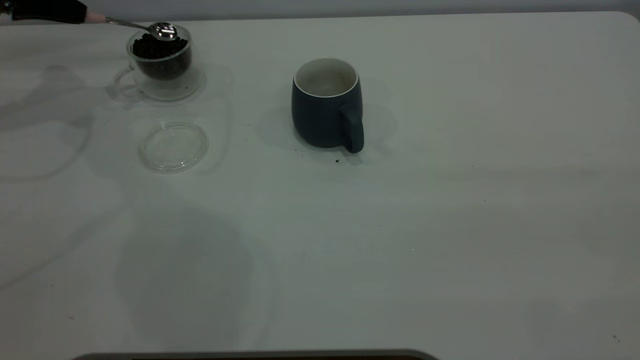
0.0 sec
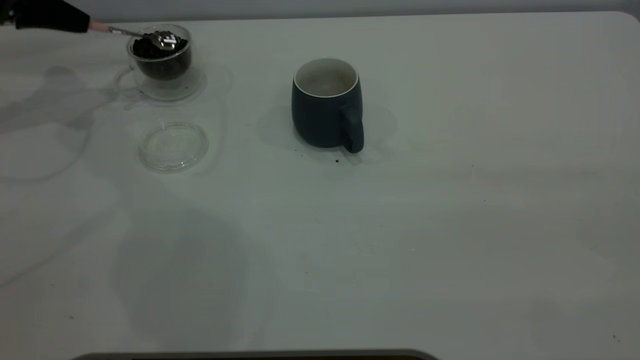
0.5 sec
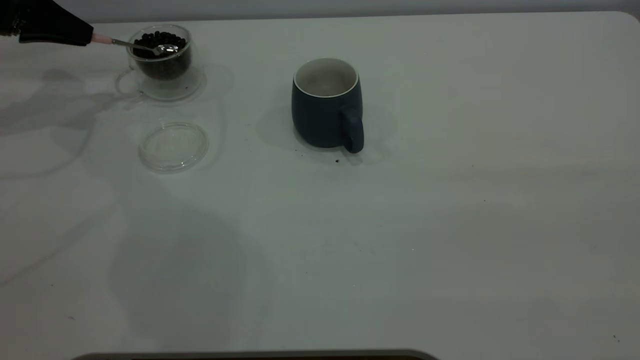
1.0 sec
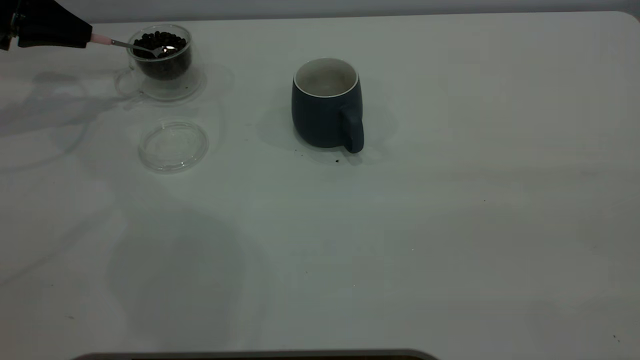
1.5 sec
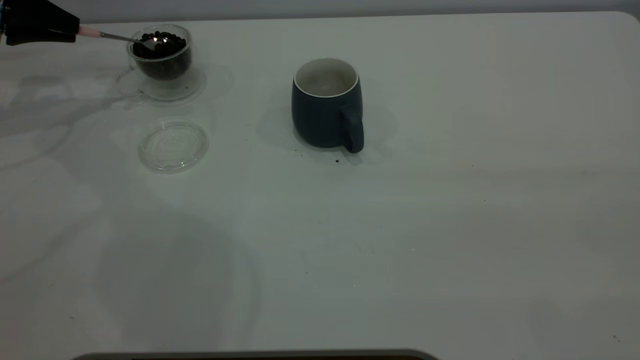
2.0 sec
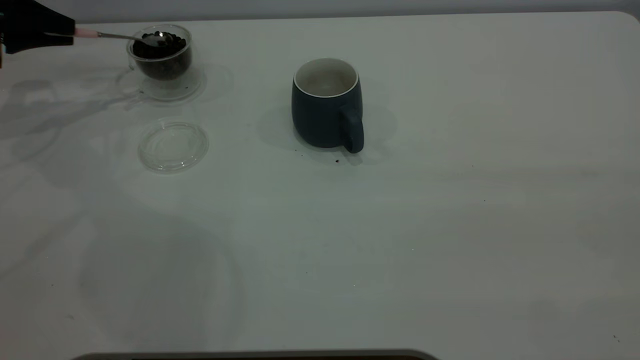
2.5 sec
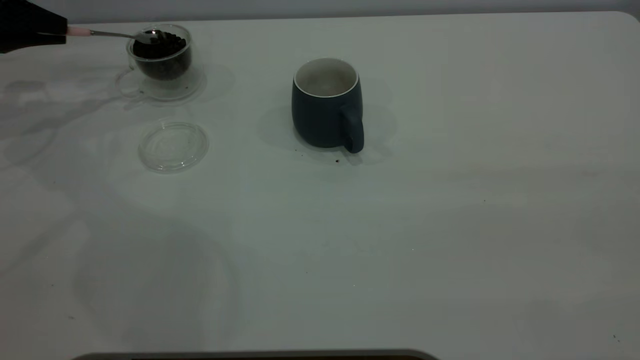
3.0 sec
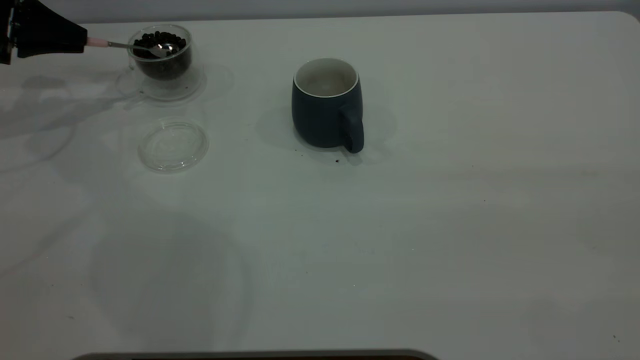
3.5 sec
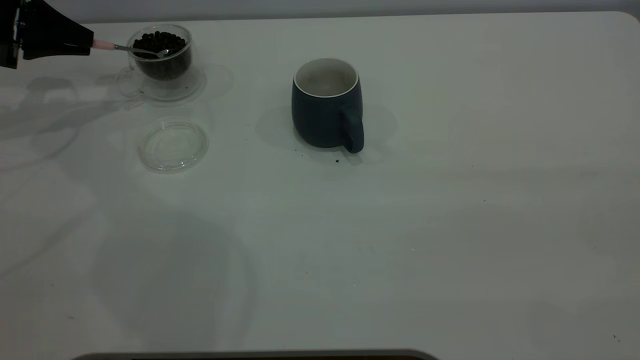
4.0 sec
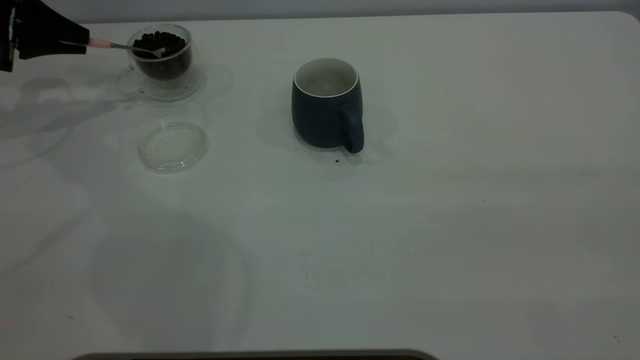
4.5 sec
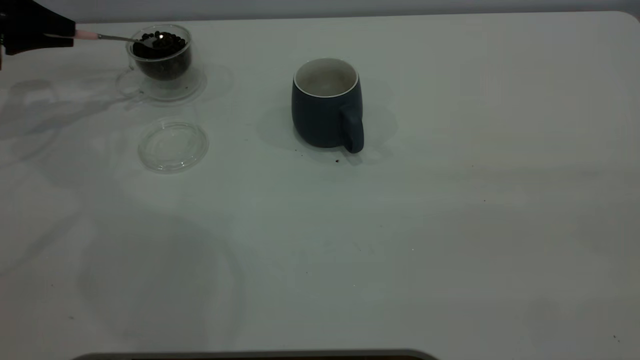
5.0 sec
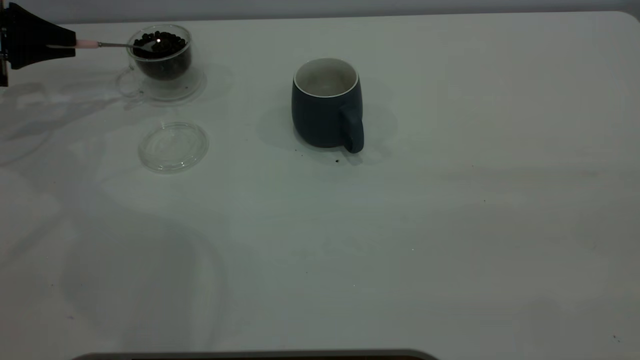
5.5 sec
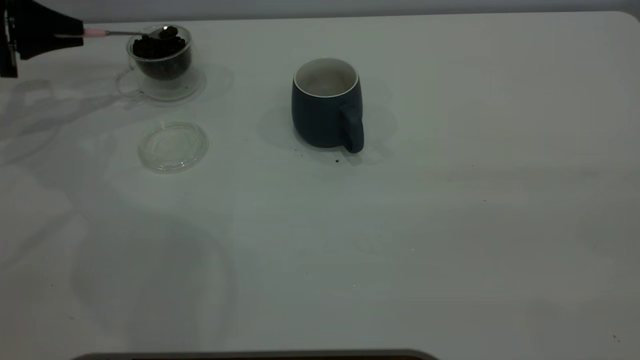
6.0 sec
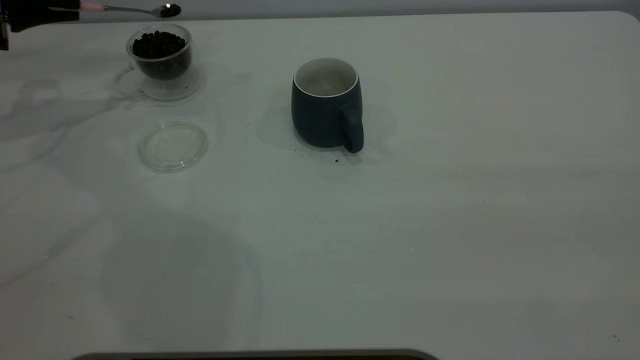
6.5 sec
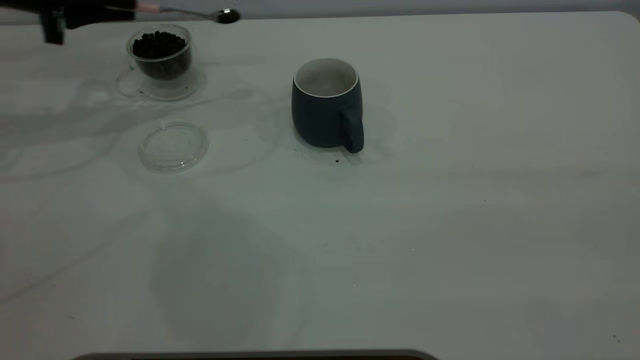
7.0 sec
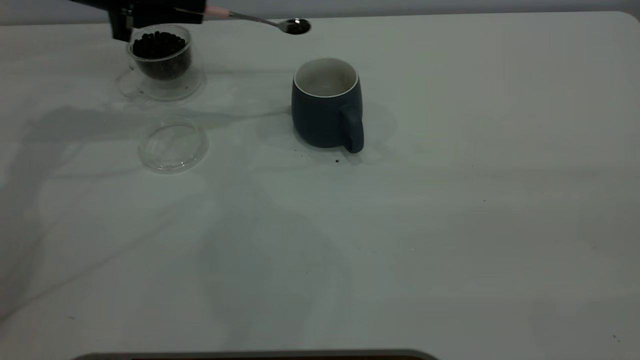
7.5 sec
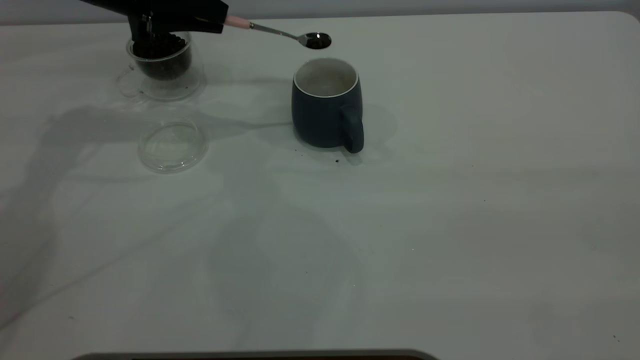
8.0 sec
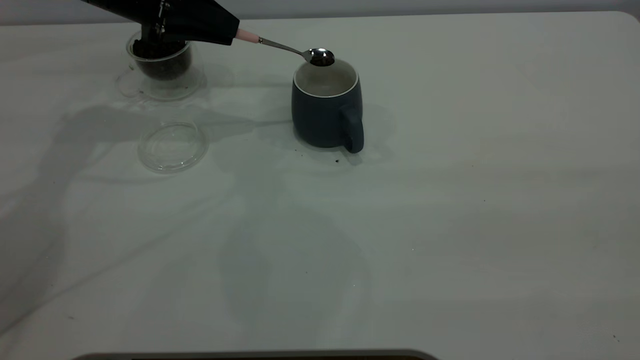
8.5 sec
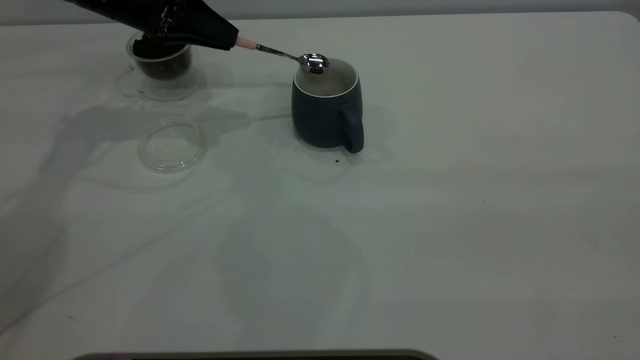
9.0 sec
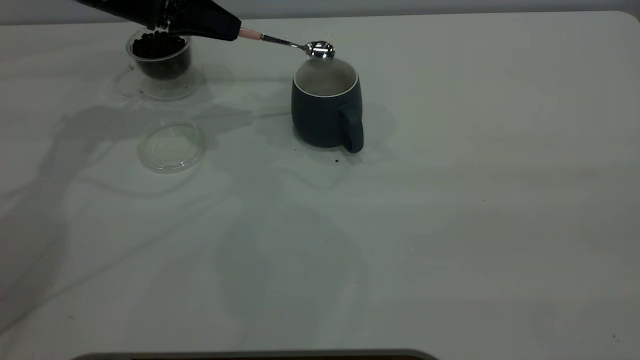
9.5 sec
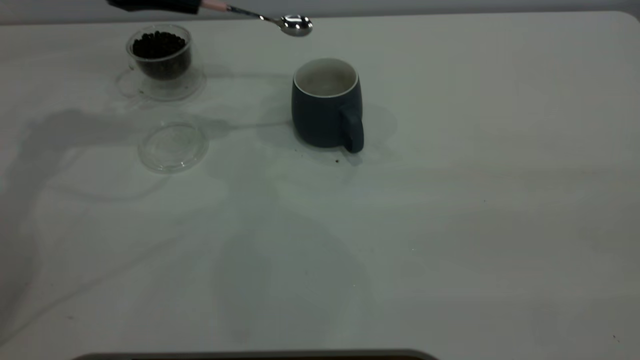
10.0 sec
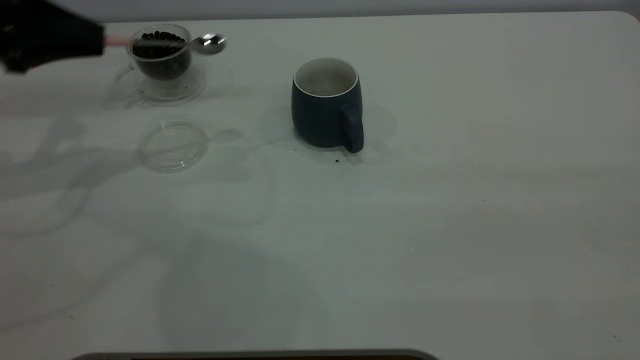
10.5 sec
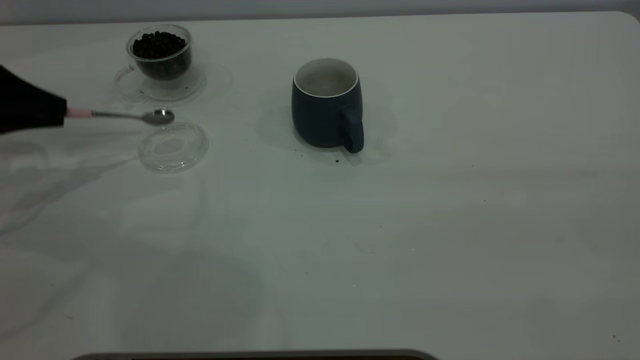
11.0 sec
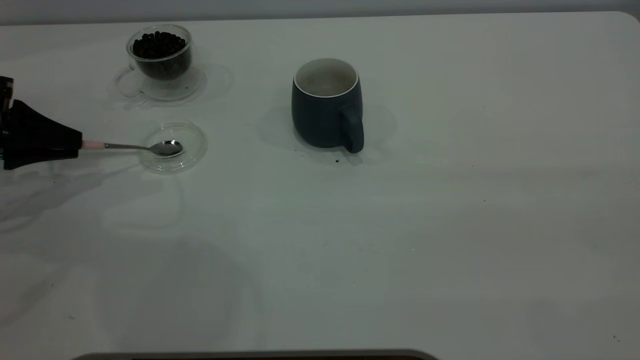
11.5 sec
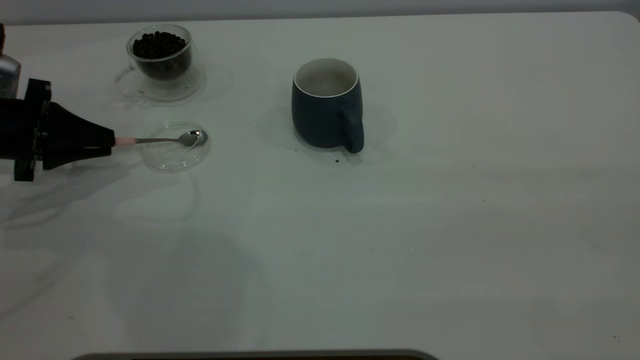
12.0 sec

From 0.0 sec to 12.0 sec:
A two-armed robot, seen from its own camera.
Task of the whole recording: the right gripper place the grey cup in the center of the table, the left gripper take the pink spoon from the cup lid and scoop out the coffee beans from the coffee cup and put them into the grey cup, the left gripper put the spoon back into the cup lid.
Step, from 0.0 sec to 9.5 sec: Scoop a spoonful of beans into the cup.
From 2.0 sec to 6.0 sec: The grippers stay close to where they were, moving slightly.
From 6.0 sec to 8.0 sec: The left gripper goes roughly 20 cm to the right.
From 10.0 sec to 12.0 sec: The left gripper shifts some 20 cm downward, to the left and backward.

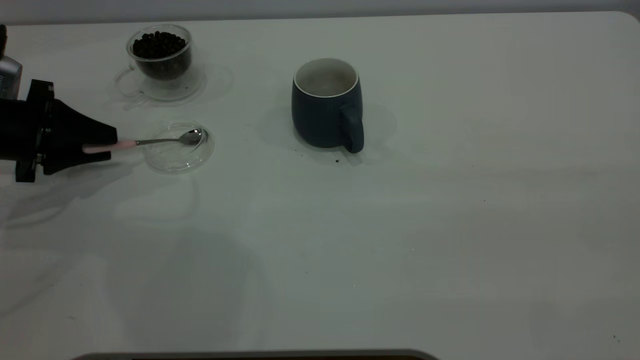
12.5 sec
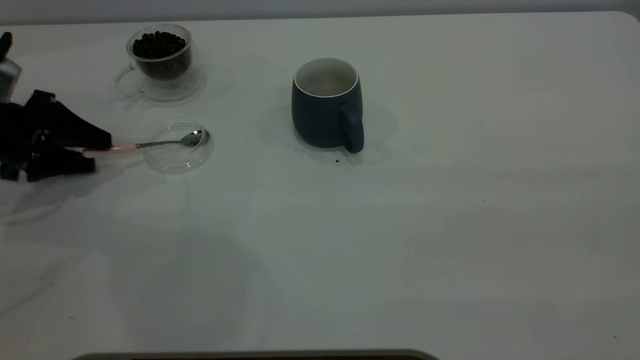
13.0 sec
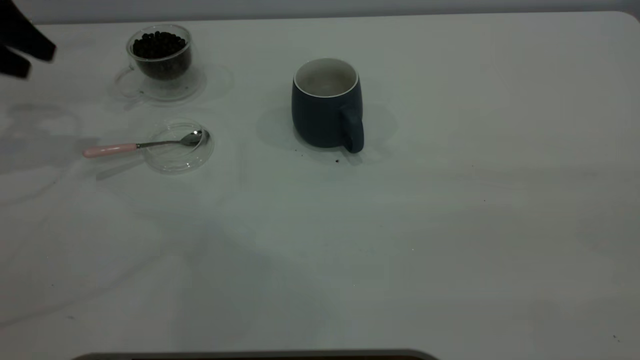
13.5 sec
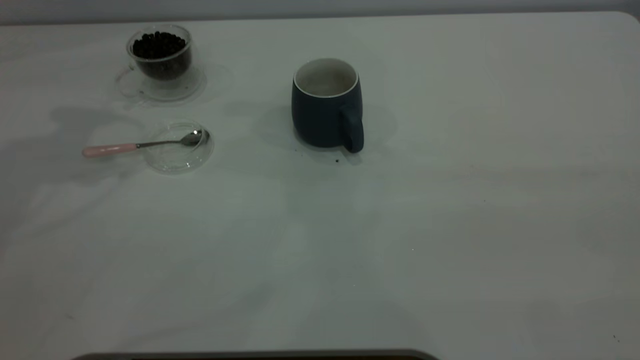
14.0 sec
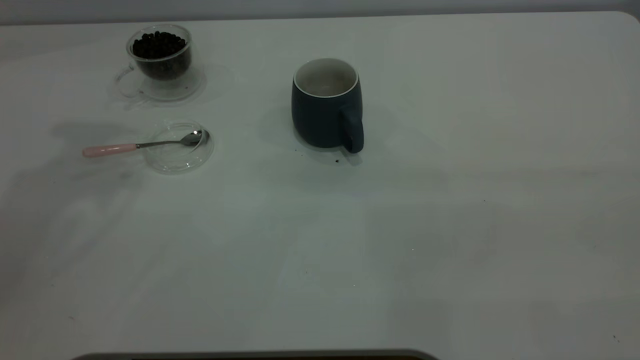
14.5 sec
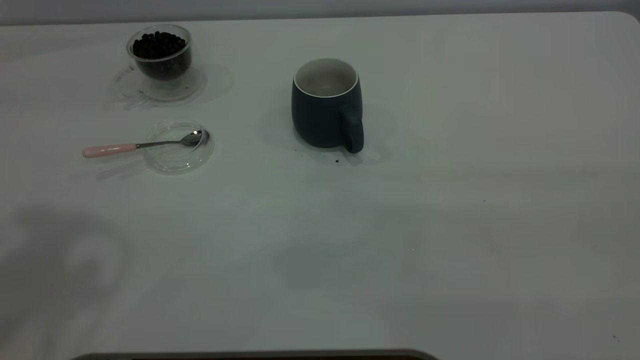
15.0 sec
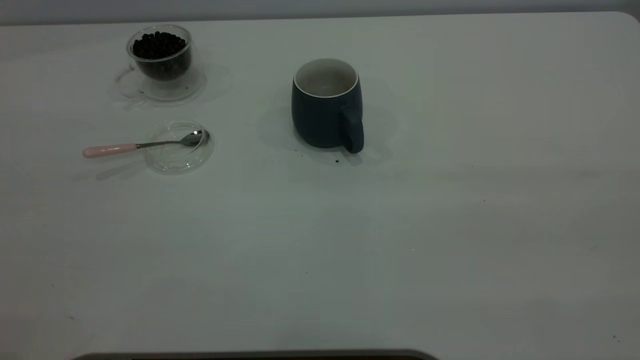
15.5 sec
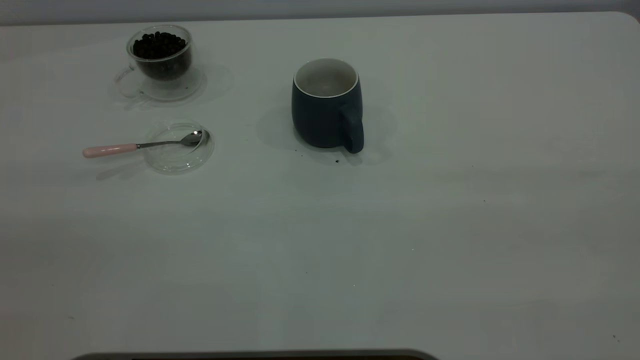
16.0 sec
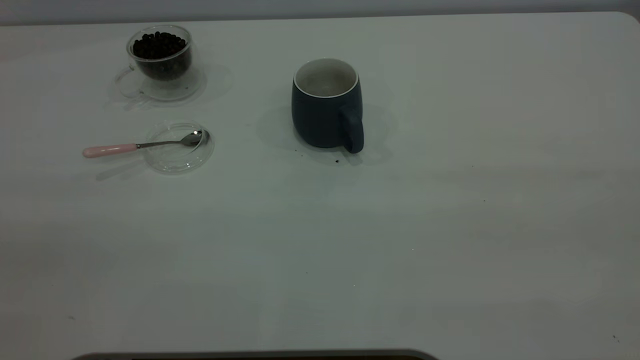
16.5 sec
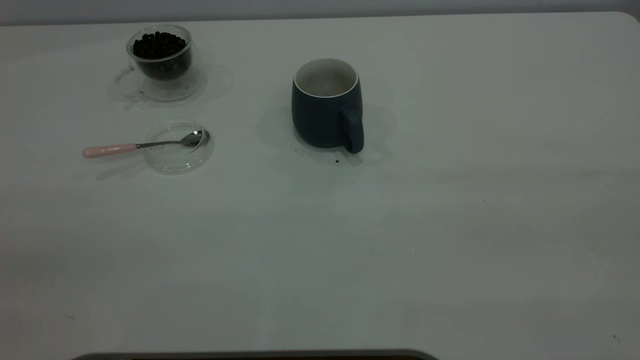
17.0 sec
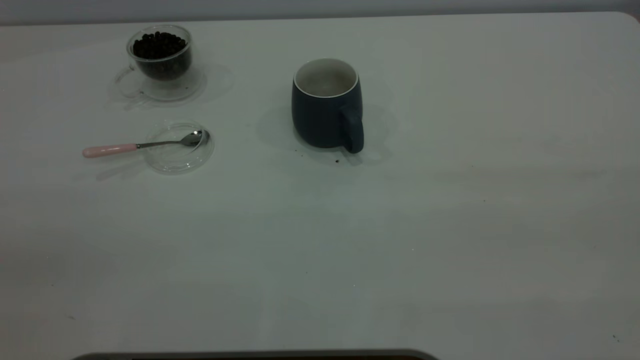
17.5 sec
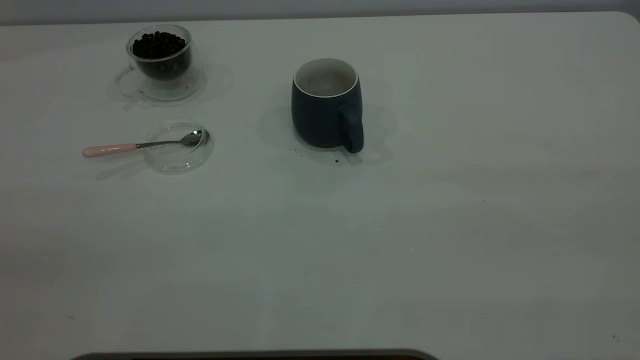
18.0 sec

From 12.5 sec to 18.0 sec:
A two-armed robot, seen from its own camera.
Task of the whole recording: the right gripper place the grey cup in the center of the table, the left gripper take the pink spoon from the cup lid and scoop out the coffee beans from the coffee cup and put them into the grey cup, the left gripper put the spoon back into the cup lid.
From 12.5 sec to 14.5 sec: The left gripper travels upward by approximately 35 cm.
